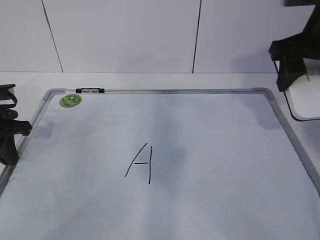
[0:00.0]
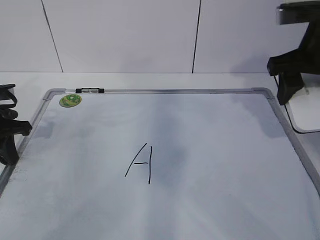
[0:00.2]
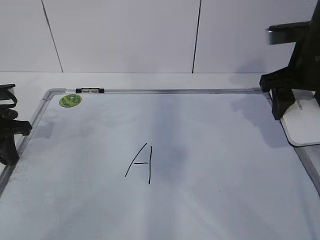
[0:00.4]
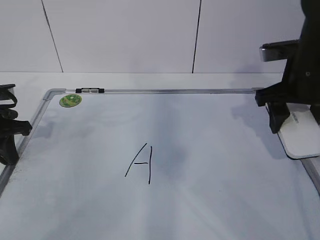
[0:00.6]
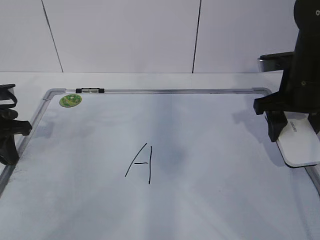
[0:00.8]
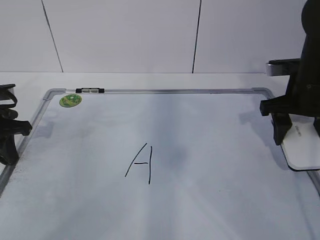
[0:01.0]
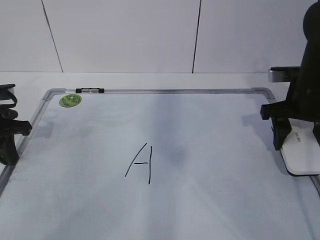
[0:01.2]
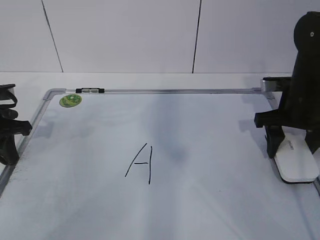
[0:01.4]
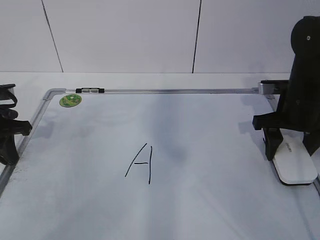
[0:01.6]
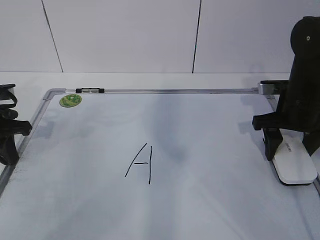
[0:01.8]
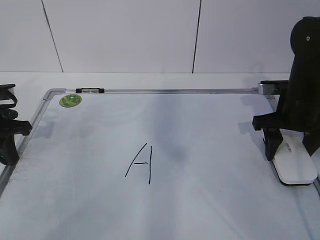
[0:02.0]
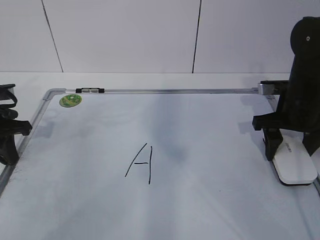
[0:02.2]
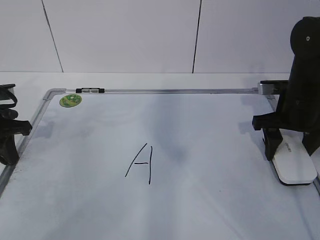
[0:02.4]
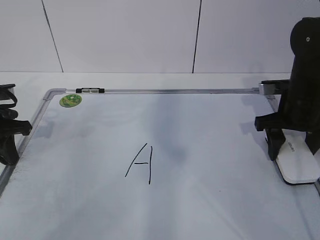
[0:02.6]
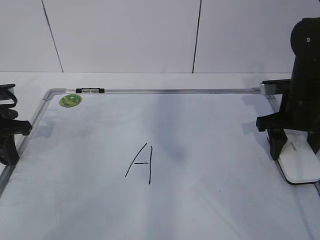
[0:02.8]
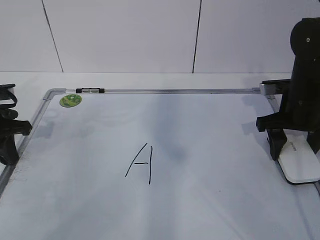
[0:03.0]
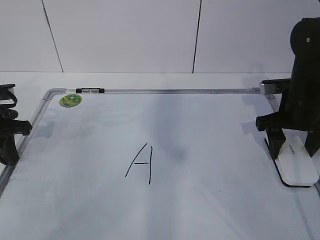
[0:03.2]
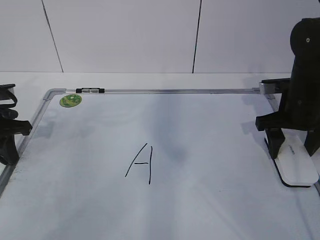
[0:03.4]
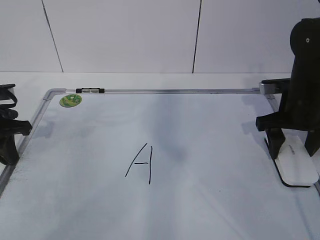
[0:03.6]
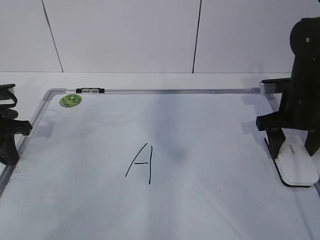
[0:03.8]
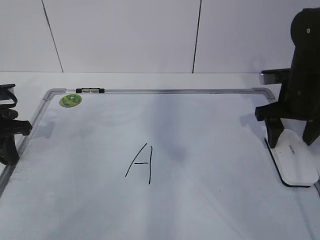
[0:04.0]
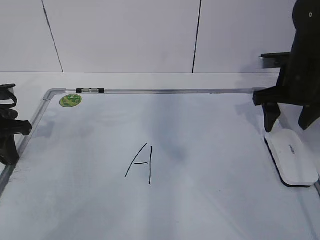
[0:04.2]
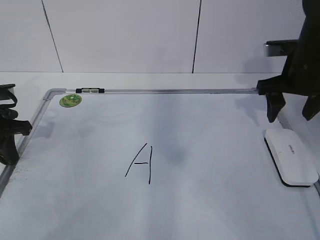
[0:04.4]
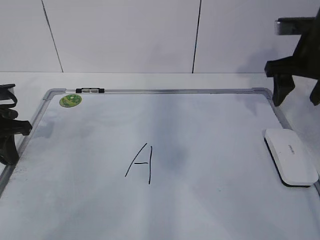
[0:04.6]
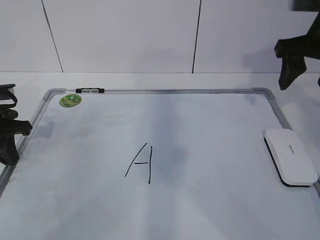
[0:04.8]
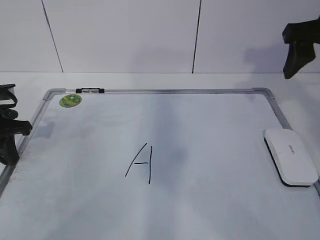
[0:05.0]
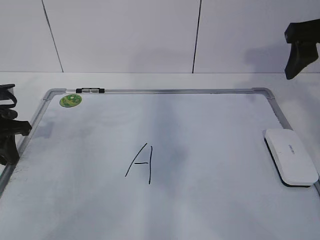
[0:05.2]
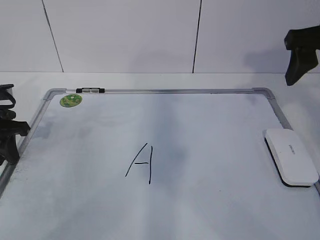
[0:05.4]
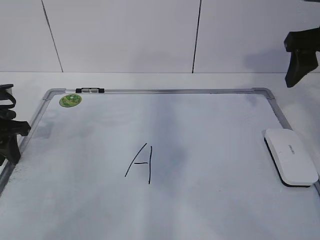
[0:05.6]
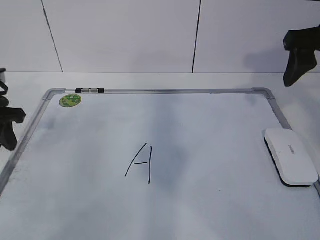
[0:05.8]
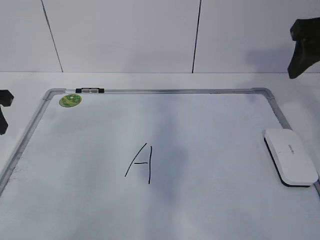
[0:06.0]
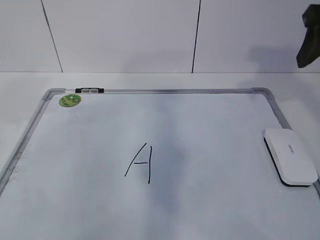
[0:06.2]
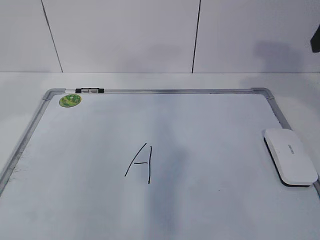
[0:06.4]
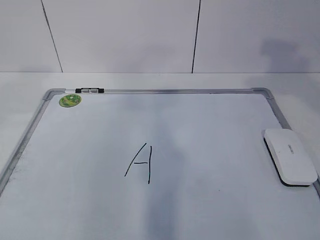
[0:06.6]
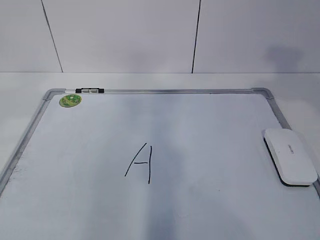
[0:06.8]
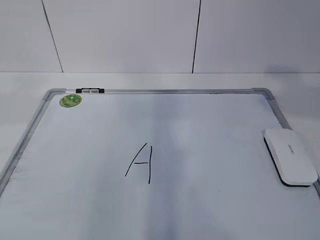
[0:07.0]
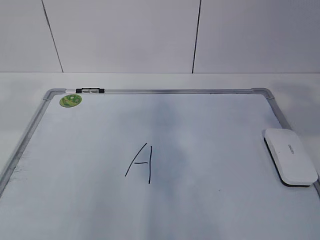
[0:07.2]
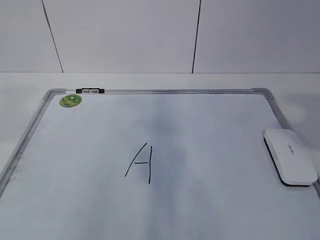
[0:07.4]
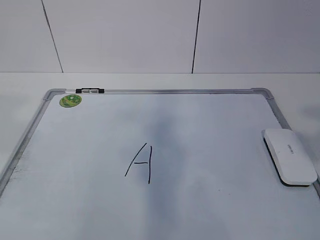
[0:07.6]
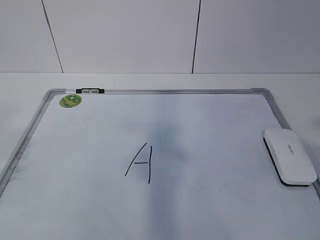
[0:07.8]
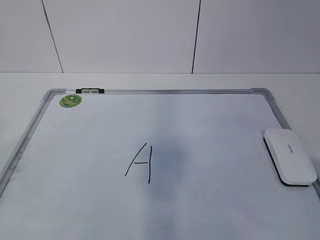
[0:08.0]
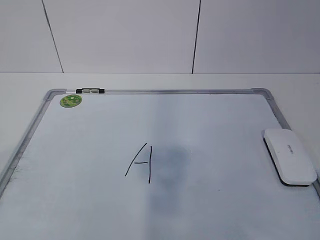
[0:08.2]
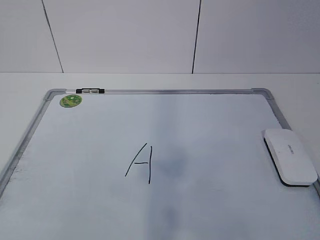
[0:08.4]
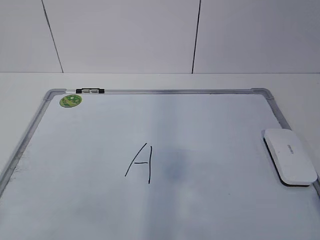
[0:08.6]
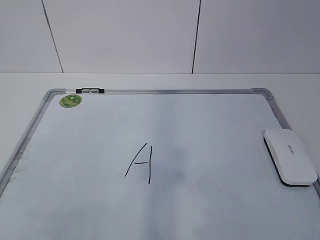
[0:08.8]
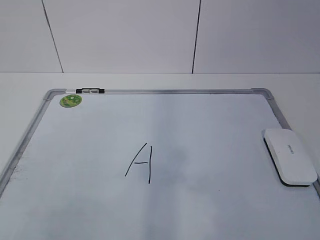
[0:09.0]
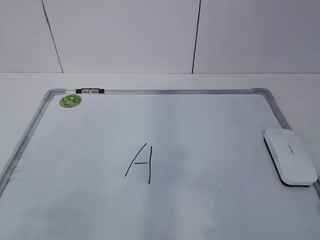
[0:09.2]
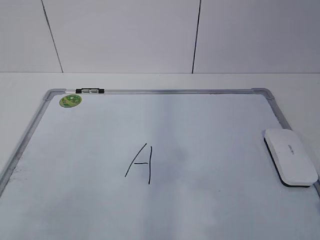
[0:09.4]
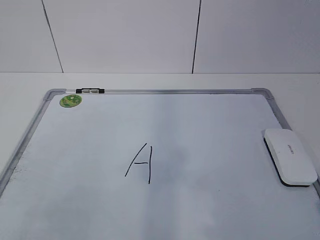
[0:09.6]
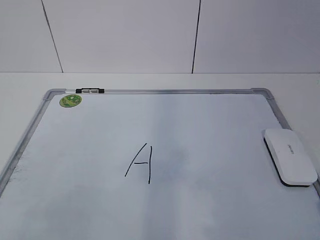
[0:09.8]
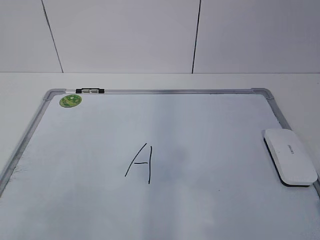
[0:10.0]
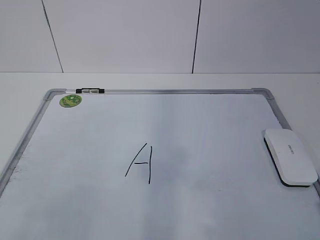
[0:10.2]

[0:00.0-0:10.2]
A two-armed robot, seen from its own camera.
Task of the whole recording: pick up the eraser on the blackboard and erase the letter "a".
0:00.0 to 0:01.4: The right gripper is displaced downward by approximately 15 cm.
0:01.4 to 0:03.0: Neither gripper changes place.
0:03.0 to 0:04.4: The right gripper shifts about 5 cm upward.
0:04.4 to 0:05.8: The left gripper opens up. The right gripper moves upward and backward, about 10 cm.
0:05.8 to 0:07.2: The right gripper is displaced backward by roughly 20 cm. The left gripper heads upward and backward, covering about 30 cm.
0:07.2 to 0:08.8: The two grippers go roughly 20 cm backward and downward.

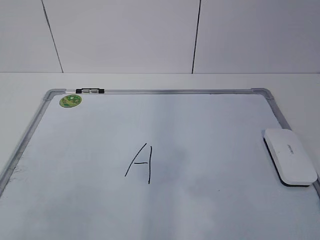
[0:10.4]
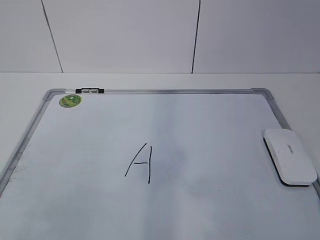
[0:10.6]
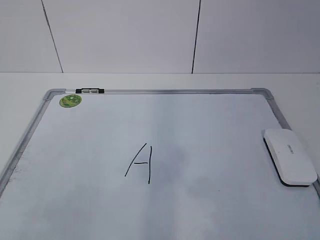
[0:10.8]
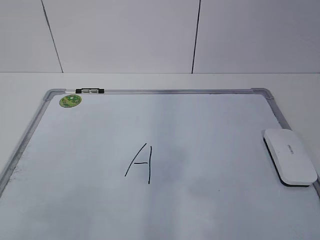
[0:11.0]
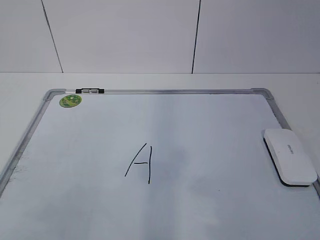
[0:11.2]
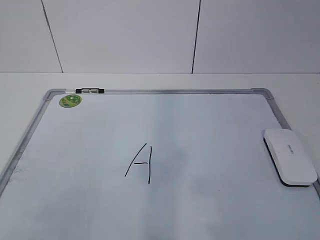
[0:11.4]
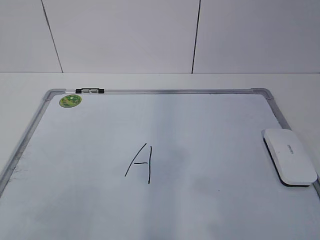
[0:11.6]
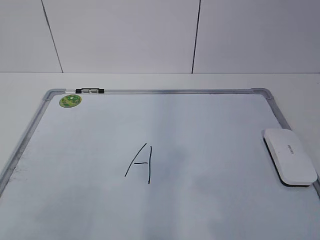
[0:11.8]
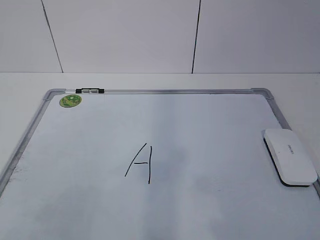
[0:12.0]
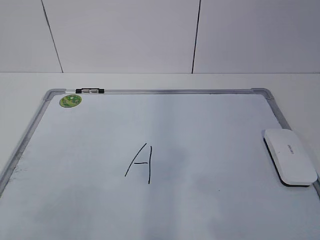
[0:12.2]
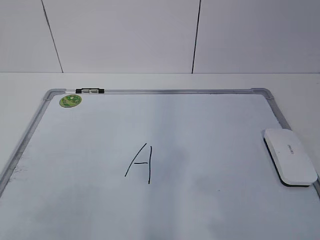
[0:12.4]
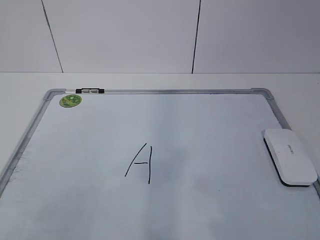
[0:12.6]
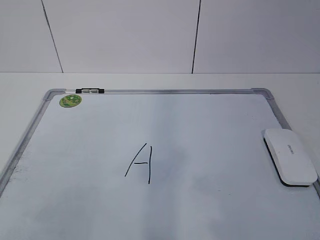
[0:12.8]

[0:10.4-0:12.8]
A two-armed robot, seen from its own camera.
Task of the whole recording: pick up the eraser on the blackboard and erase the letter "a".
0:11.6 to 0:12.8: The two grippers keep their place.

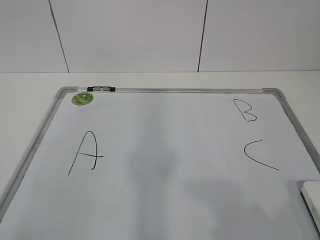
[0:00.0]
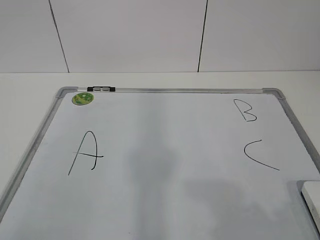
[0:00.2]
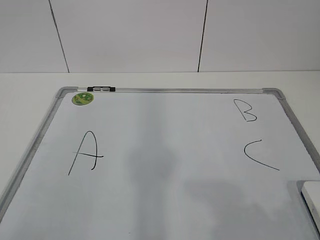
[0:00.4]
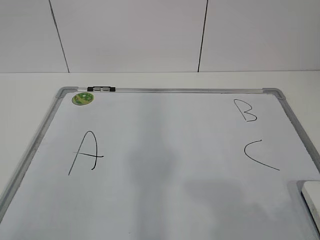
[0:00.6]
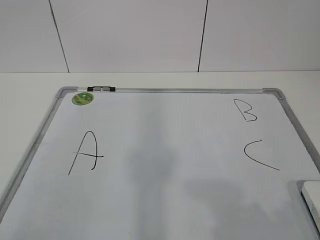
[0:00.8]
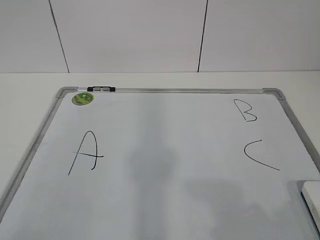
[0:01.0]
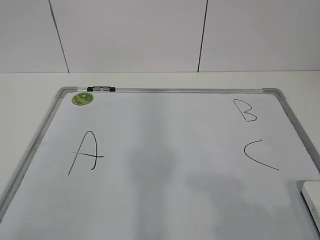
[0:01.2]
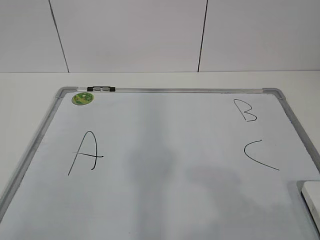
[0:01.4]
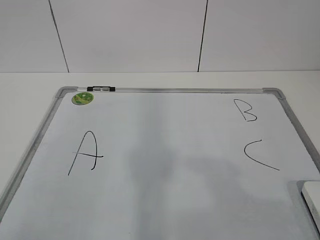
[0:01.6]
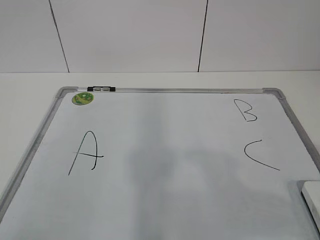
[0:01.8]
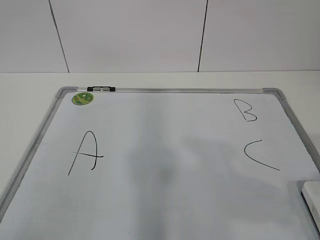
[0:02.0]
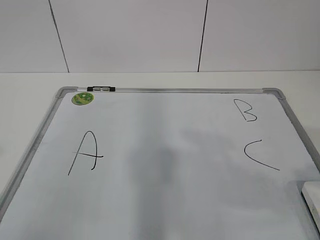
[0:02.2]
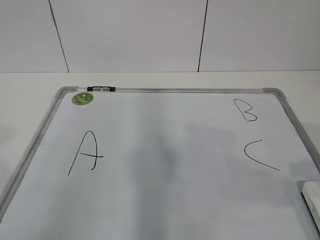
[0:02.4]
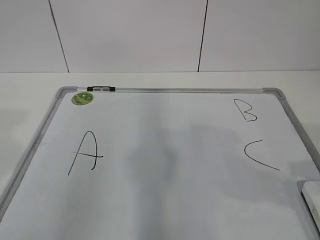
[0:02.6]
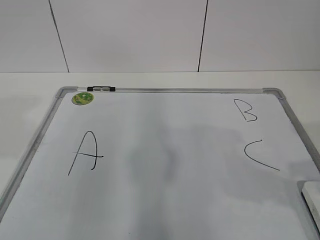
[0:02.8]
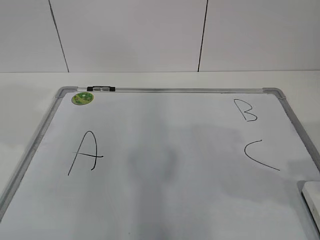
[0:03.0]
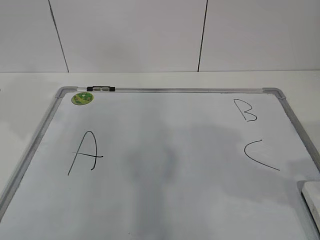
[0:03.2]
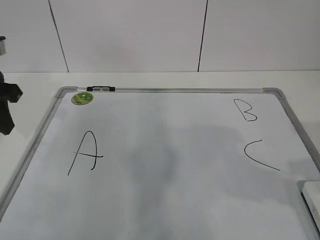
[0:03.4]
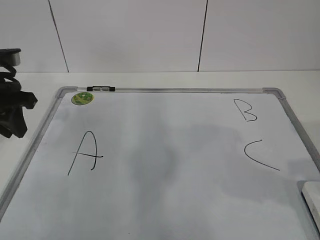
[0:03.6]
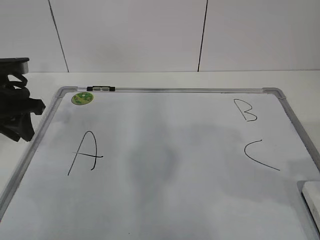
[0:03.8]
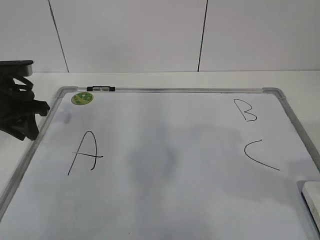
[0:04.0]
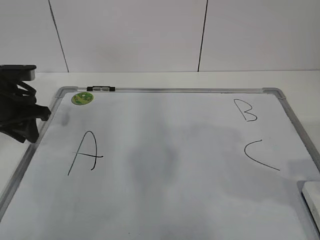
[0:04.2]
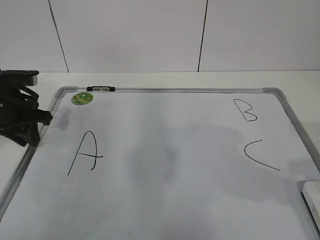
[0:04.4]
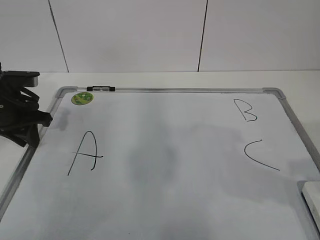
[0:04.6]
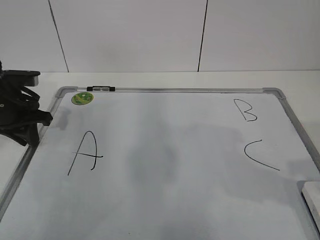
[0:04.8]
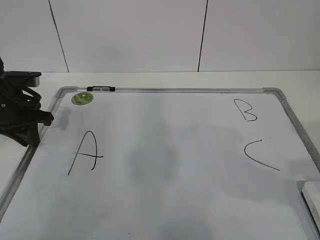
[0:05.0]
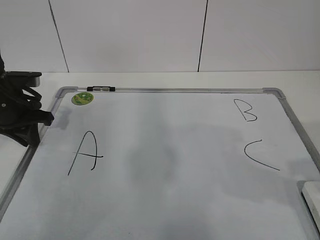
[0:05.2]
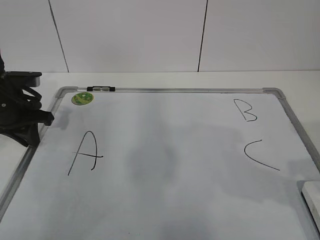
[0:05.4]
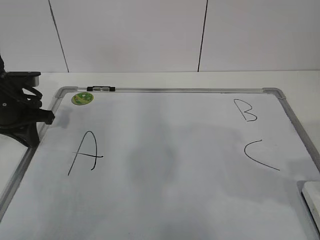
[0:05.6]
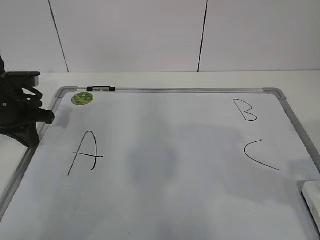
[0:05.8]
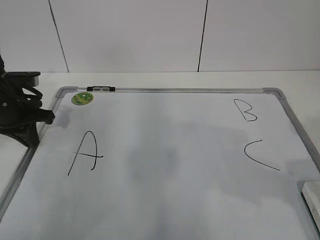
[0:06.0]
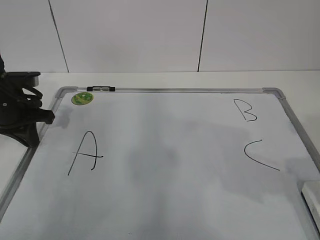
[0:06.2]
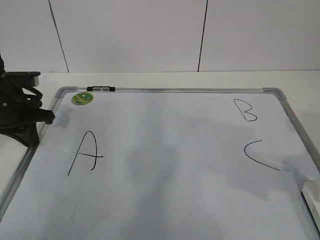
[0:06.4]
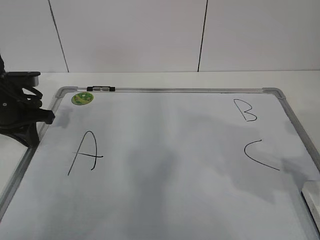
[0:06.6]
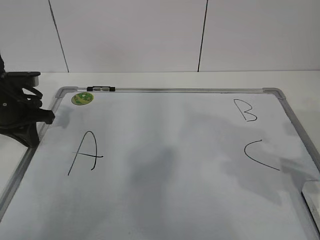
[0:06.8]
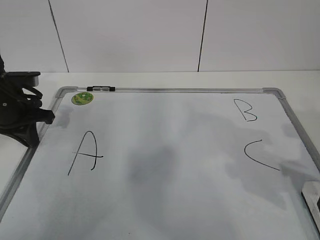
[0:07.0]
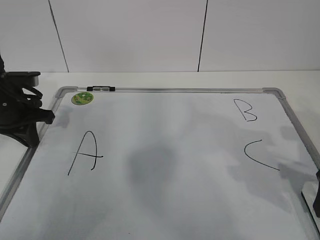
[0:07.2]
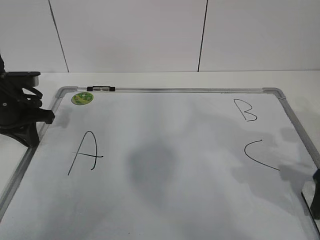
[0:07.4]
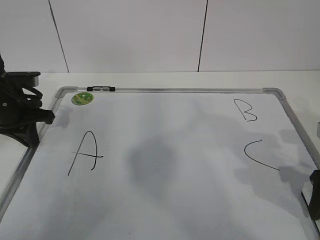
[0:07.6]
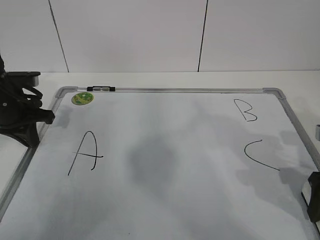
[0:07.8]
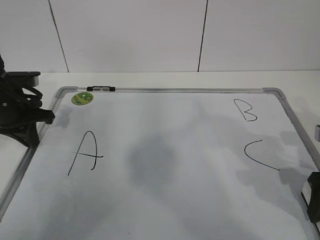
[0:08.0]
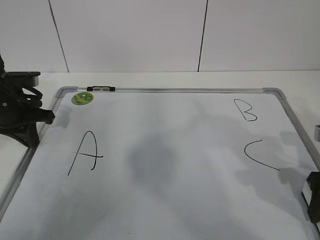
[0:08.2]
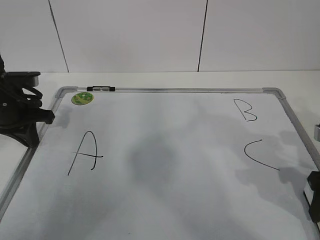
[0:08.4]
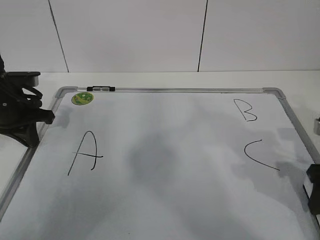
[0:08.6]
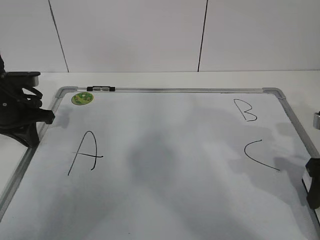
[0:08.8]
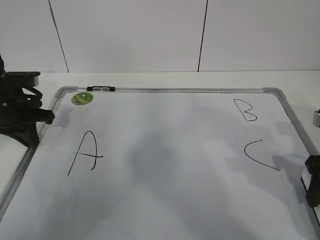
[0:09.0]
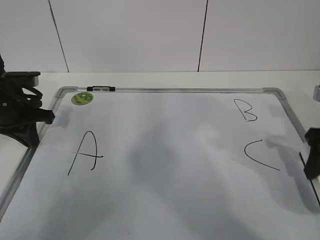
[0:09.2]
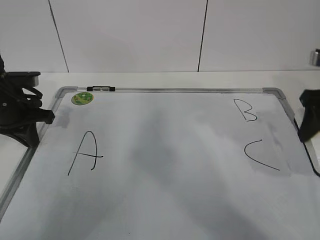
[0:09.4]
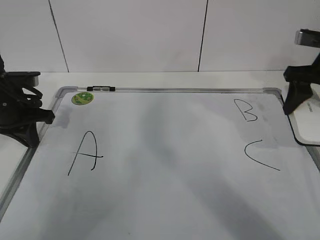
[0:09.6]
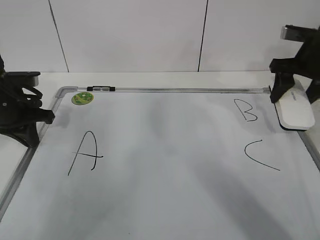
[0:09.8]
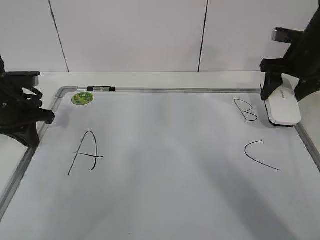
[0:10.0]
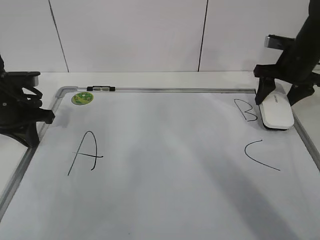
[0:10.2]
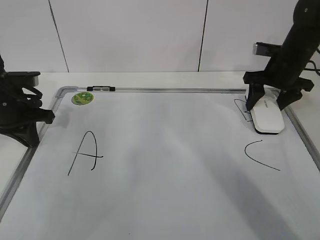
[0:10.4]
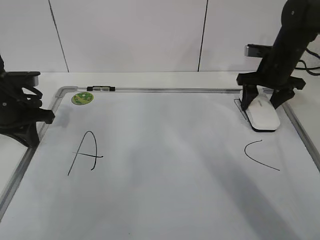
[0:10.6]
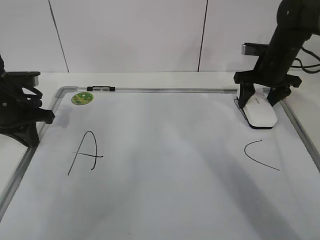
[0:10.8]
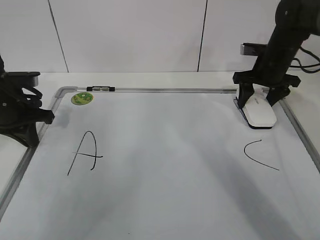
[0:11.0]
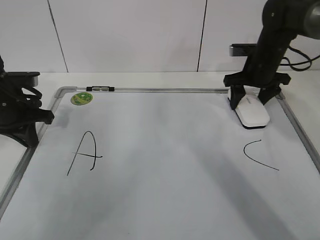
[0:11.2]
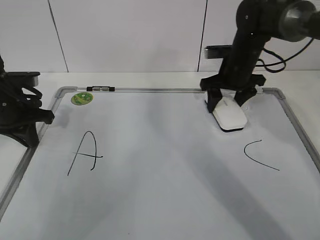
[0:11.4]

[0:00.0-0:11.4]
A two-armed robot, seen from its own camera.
Task of the whole recording: pick up the eraser on the blackboard and erase the letter "B".
Step, 0:00.0 to 0:04.4: Hold the drawing board steady with your left hand.
0:01.4 to 0:02.8: The left gripper is displaced forward by about 15 cm.
0:02.8 to 0:04.2: The left gripper moves forward and downward, some 25 cm.
0:04.2 to 0:05.6: The left gripper closes up.
0:05.6 to 0:07.2: The right gripper moves downward and forward, approximately 10 cm, and opens up.
0:07.2 to 0:08.6: The right gripper closes its fingers.
0:08.6 to 0:10.0: The right gripper travels forward by about 20 cm.
0:10.0 to 0:11.4: The right gripper shifts approximately 10 cm to the left and downward.
